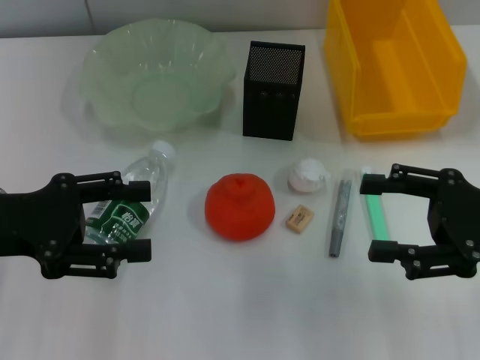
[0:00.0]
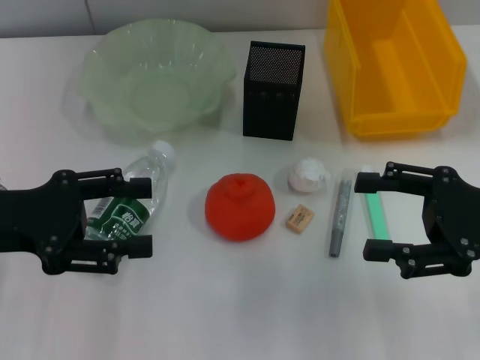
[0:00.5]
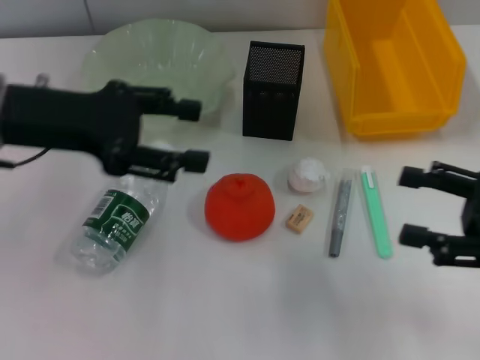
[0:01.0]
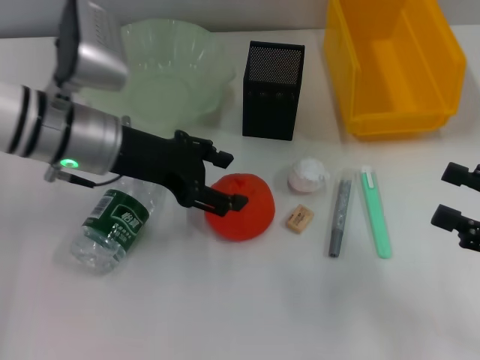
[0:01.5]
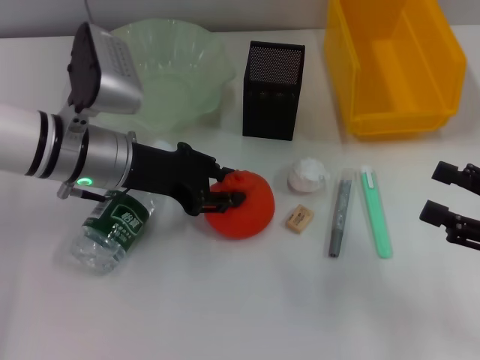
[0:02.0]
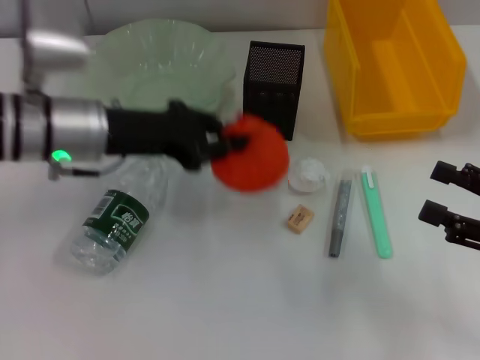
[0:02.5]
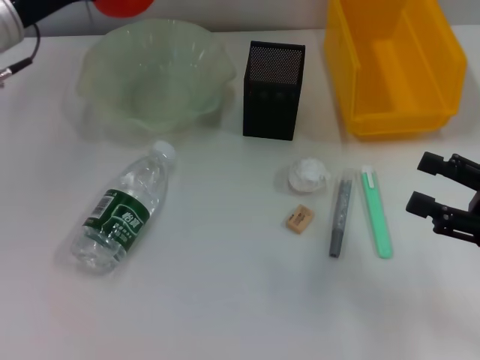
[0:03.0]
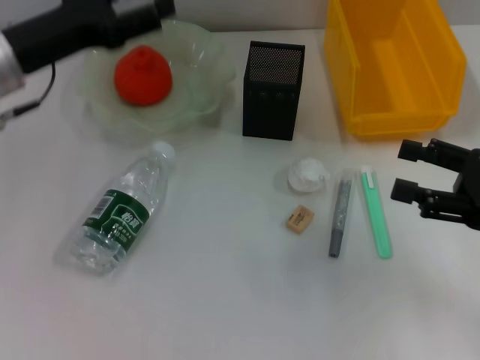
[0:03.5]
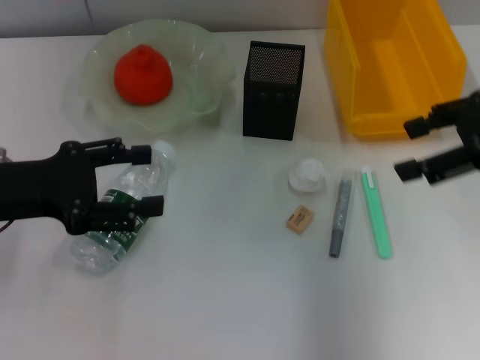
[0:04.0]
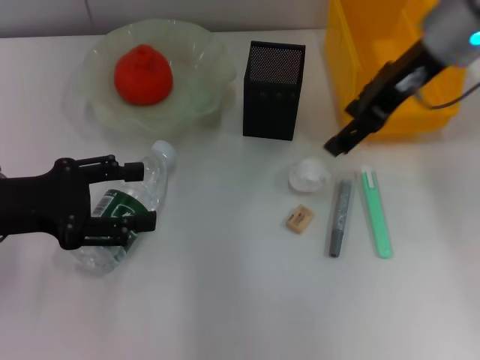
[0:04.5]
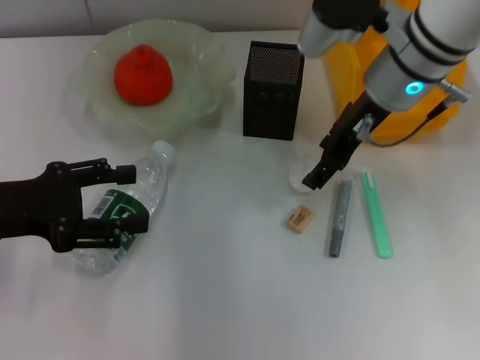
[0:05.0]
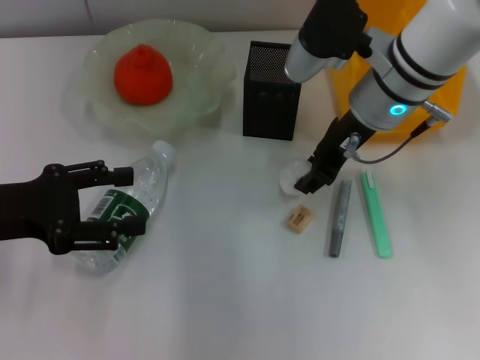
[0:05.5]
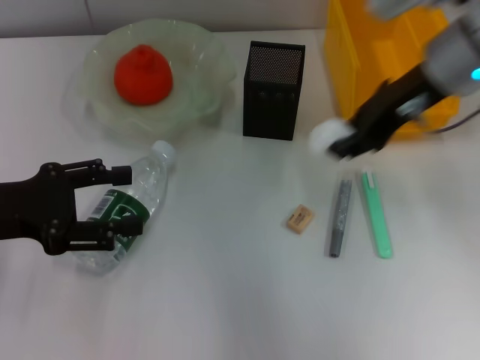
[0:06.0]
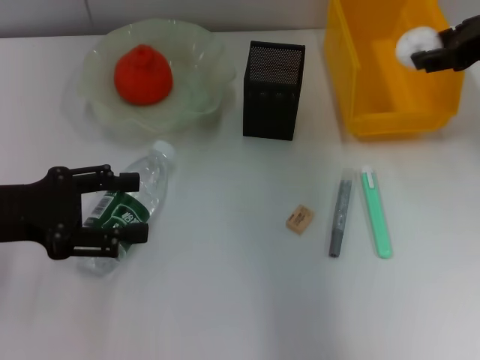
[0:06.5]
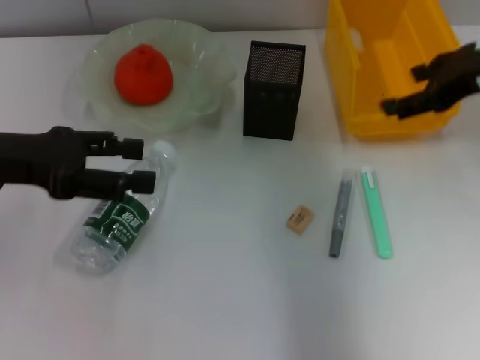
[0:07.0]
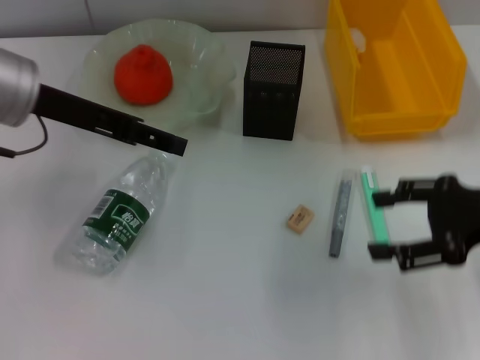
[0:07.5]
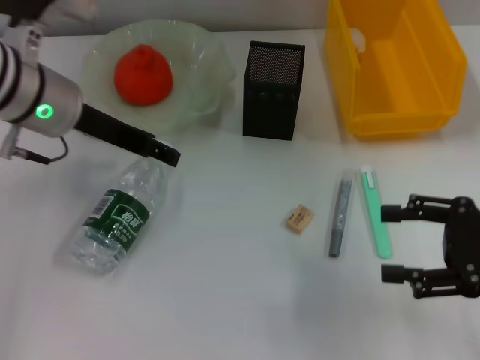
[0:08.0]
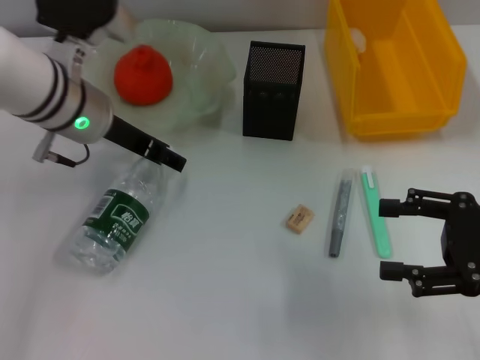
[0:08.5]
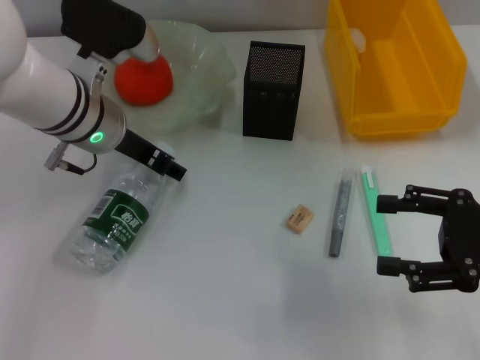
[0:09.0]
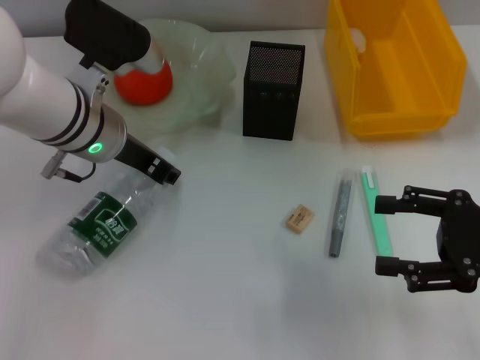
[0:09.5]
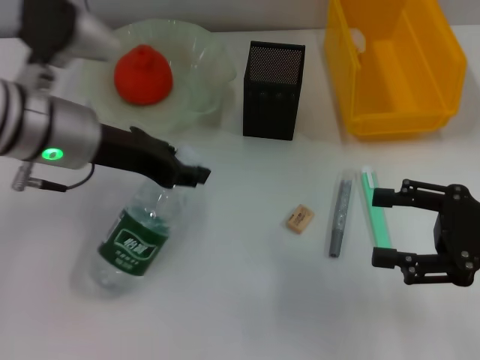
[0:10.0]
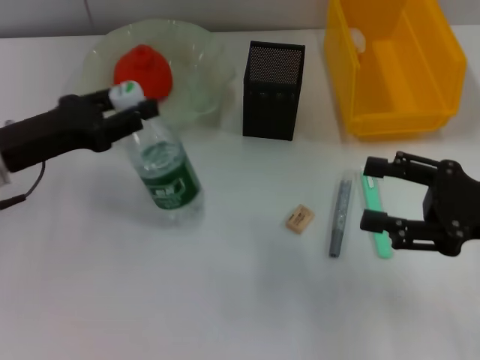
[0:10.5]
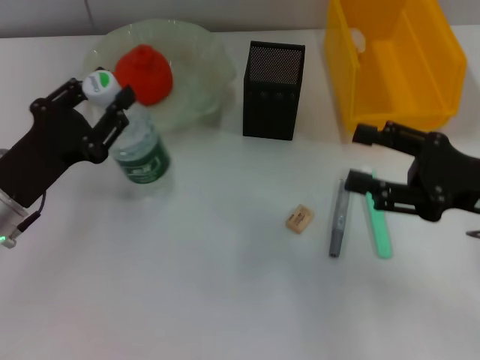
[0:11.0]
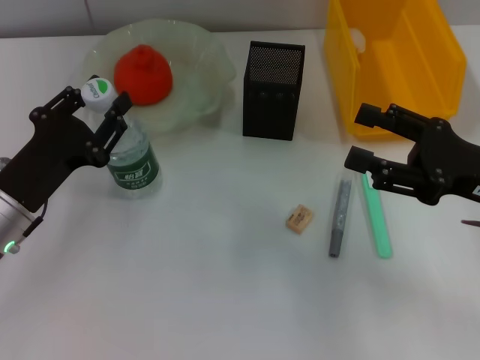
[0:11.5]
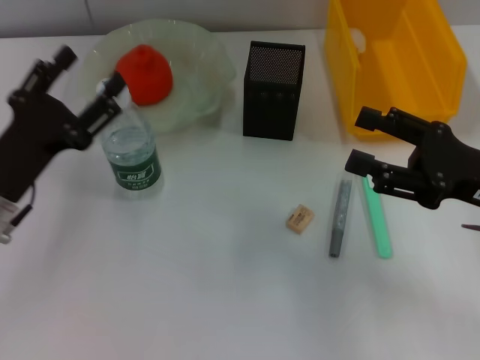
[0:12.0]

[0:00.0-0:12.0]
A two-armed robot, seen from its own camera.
Step, 0:00.0 to 0:02.0: Grab the orange with the left hand.
Step, 0:02.5 to 0:03.5: Place the orange into the fruit bowl with the left hand.
Step, 0:04.0 to 0:05.0: Grab the paper ball with the right hand.
Step, 0:05.5 to 0:06.5: Place the paper ball into the trash can with the right hand.
Step, 0:07.0 to 0:09.0: Grab the water bottle with the right hand.
Step, 0:09.5 to 0:11.5: Pass the water bottle from the right hand to the left hand.
0:00.0 to 0:02.0: The right gripper changes place by roughly 5 cm; the left gripper moves to the right and forward, approximately 15 cm, and closes its fingers.
0:02.0 to 0:04.0: The left gripper travels to the left and backward by some 15 cm, and opens up, while the right gripper travels upward and forward by roughly 20 cm.
0:04.0 to 0:06.0: The right gripper travels to the left by some 10 cm, and closes its fingers.
0:06.0 to 0:08.0: The left gripper travels forward and to the right by roughly 15 cm. Meanwhile the right gripper moves backward, downward and to the right, approximately 20 cm, and opens up.
0:08.0 to 0:10.0: The left gripper closes.
0:10.0 to 0:12.0: The left gripper travels downward, backward and to the left by about 15 cm.

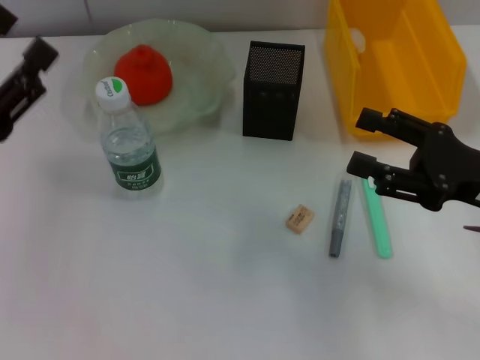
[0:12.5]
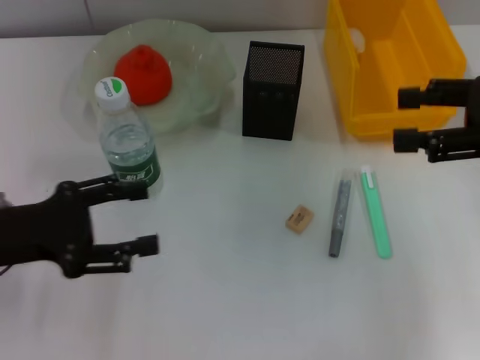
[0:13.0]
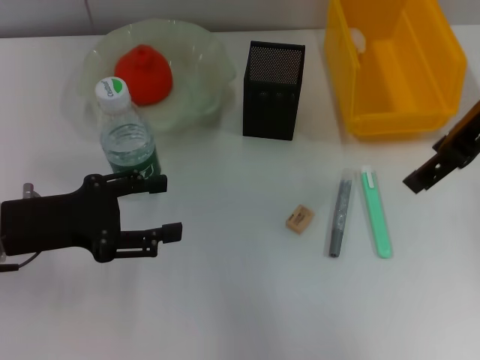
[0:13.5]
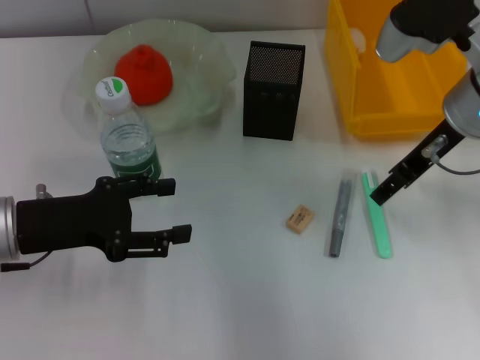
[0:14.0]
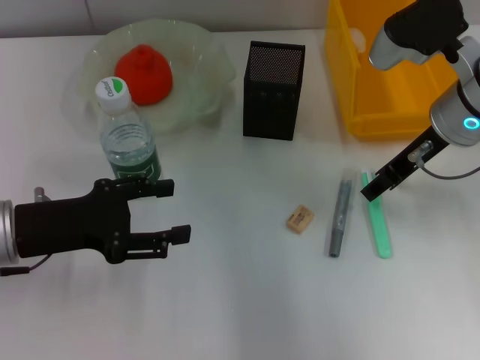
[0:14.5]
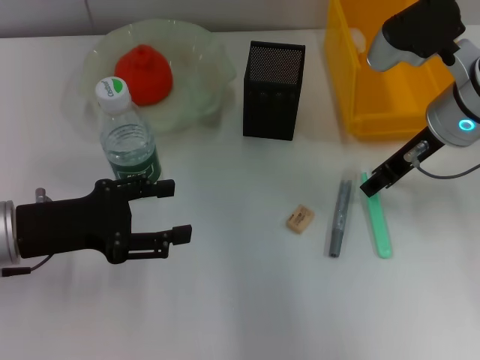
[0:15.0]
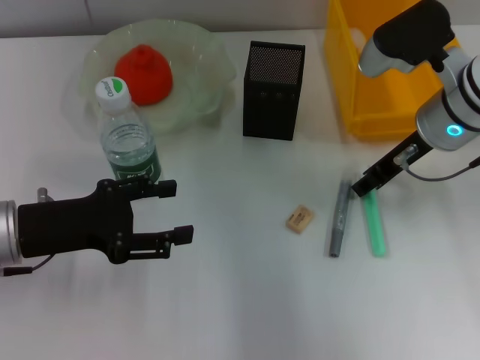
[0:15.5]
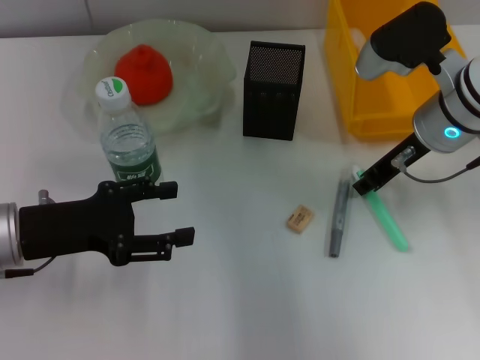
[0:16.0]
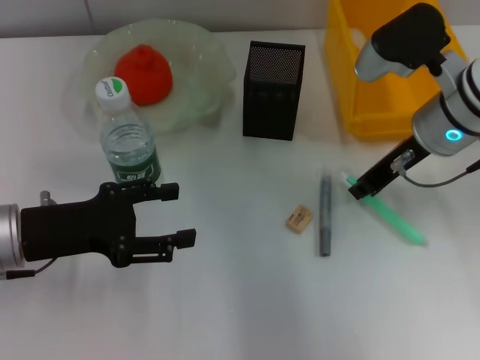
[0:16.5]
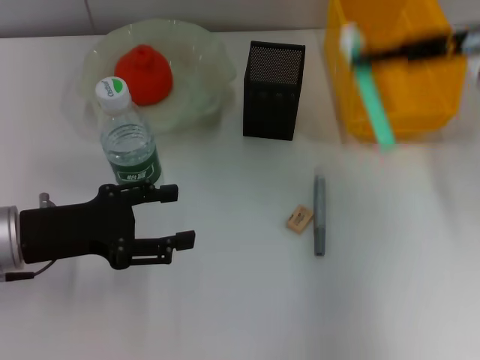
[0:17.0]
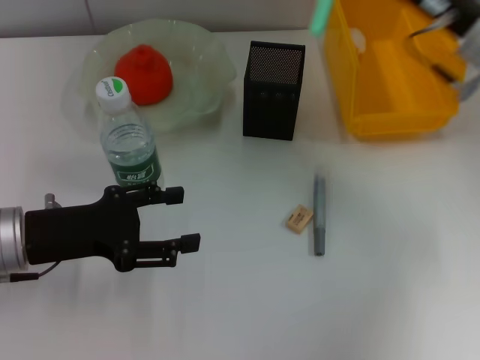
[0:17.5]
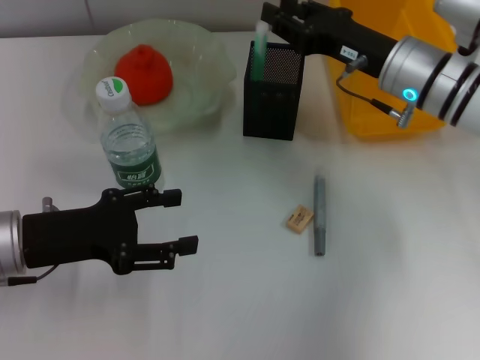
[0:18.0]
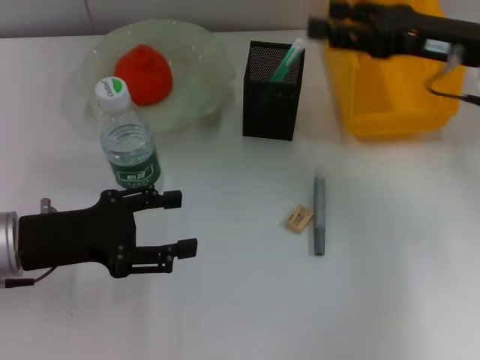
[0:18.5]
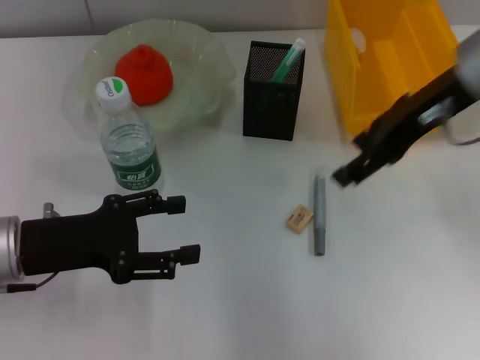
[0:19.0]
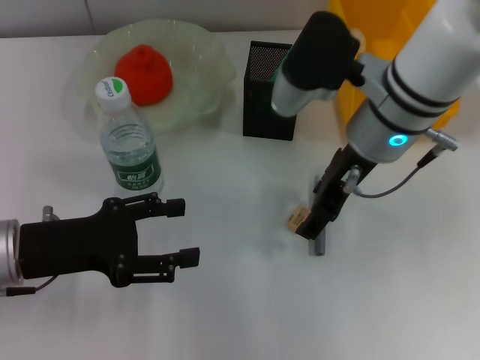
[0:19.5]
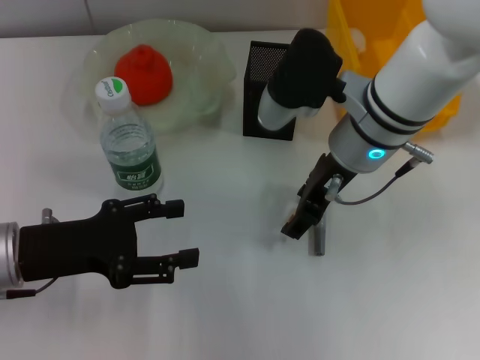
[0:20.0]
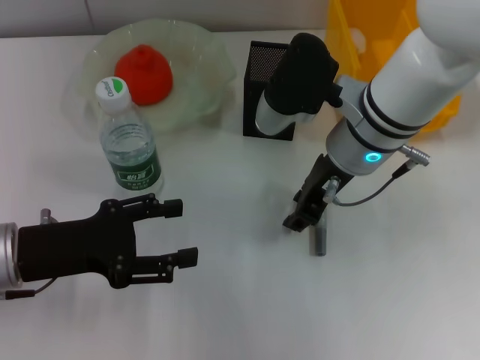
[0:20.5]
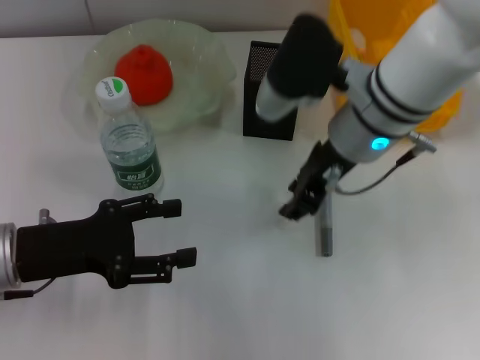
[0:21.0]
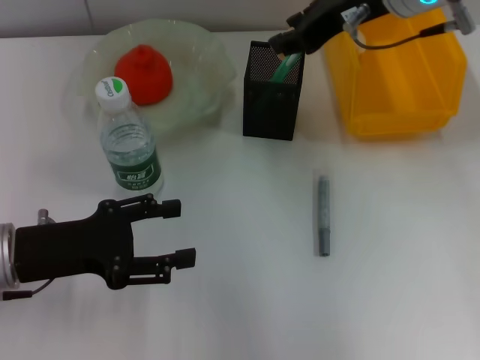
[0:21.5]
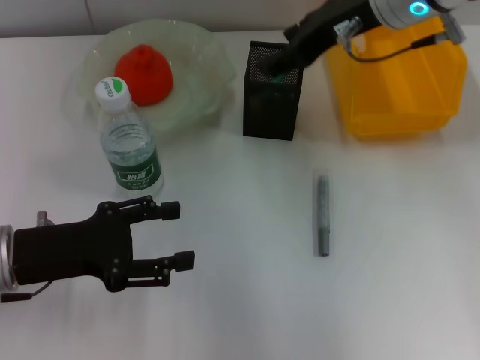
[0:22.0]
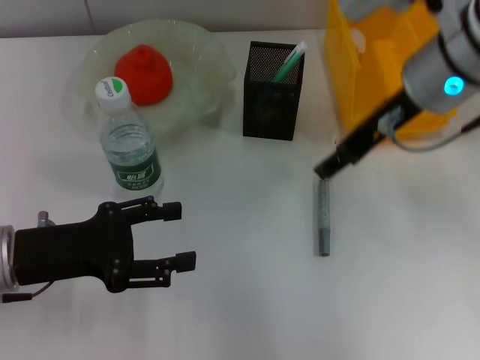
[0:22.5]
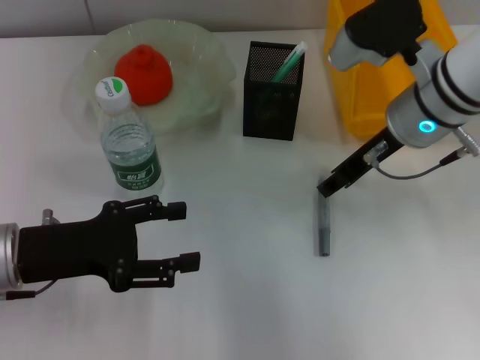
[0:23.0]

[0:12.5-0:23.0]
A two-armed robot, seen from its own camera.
Step, 0:12.5 to 0:16.0: Grab the blue utility knife with the right hand.
Step, 0:16.5 to 0:18.0: Place the blue utility knife into the pen holder with the right hand.
Step, 0:18.5 to 0:20.5: Grab the eraser with the right hand.
Step, 0:21.0 to 0:22.0: Put the eraser into the pen holder with the right hand.
0:12.5 to 0:14.5: The left gripper shifts by roughly 5 cm. The right gripper is displaced forward and to the left by about 15 cm, and moves about 15 cm upward and comes back.
0:14.5 to 0:16.5: The right gripper closes up.
0:16.5 to 0:19.0: The right gripper moves up and down over some 10 cm, changing direction 2 times, and opens.
0:19.0 to 0:21.0: The right gripper shifts some 10 cm to the left and downward, and closes up.
0:21.0 to 0:23.0: The right gripper is displaced to the right by some 5 cm, and goes upward and returns, roughly 10 cm each way.

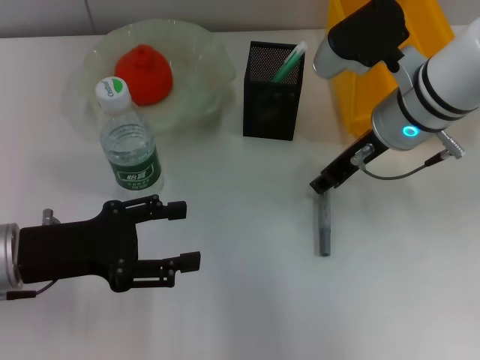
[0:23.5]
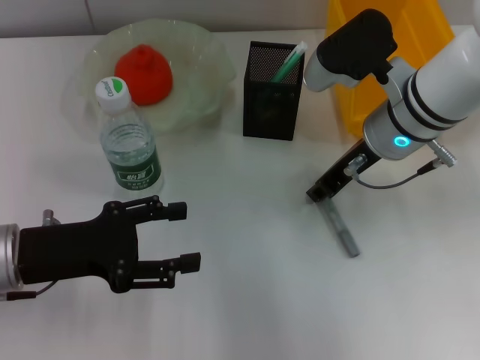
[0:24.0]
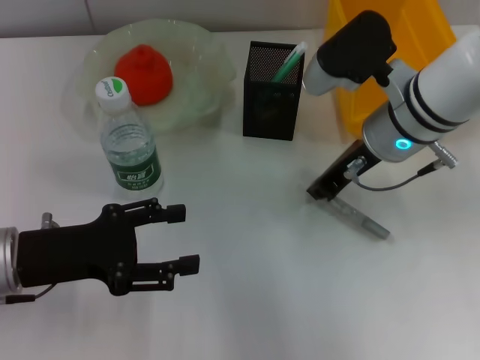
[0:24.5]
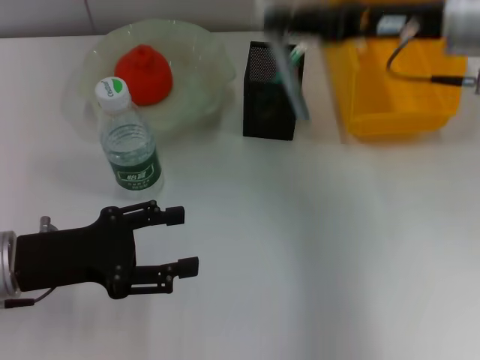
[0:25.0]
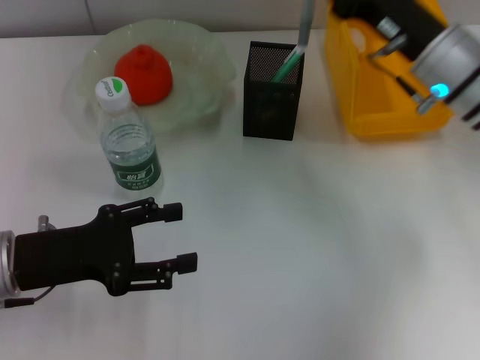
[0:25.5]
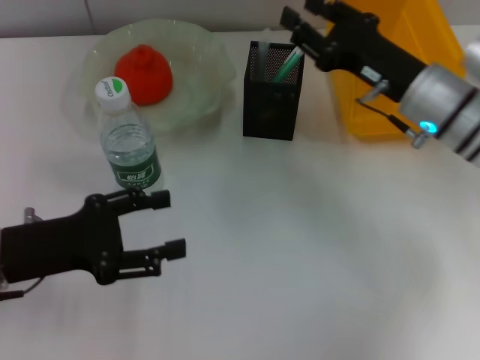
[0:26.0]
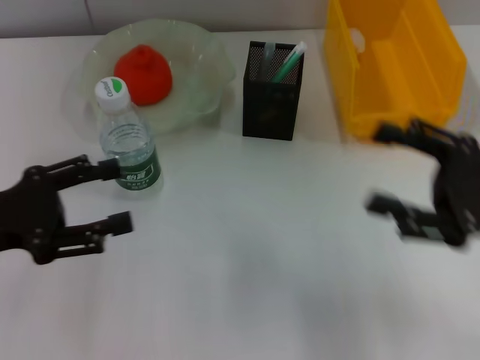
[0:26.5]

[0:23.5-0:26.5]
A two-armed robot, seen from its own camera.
Step, 0:24.5 to 0:26.0: Place the gray glue into the pen holder with the right hand.
0:23.5 to 0:25.0: The right gripper heads upward and to the right, covering roughly 10 cm, and closes up.
0:25.0 to 0:26.5: The left gripper is displaced to the left by about 5 cm; the right gripper shifts approximately 20 cm backward, downward and to the right, and opens up.
